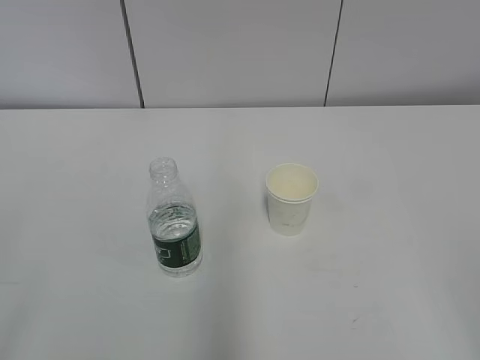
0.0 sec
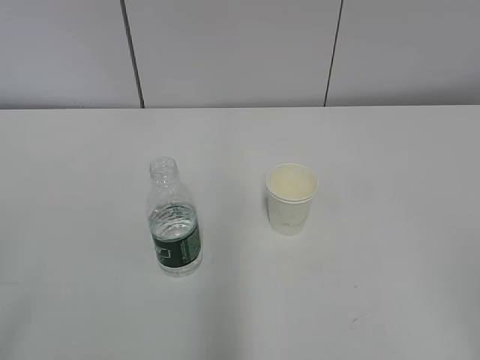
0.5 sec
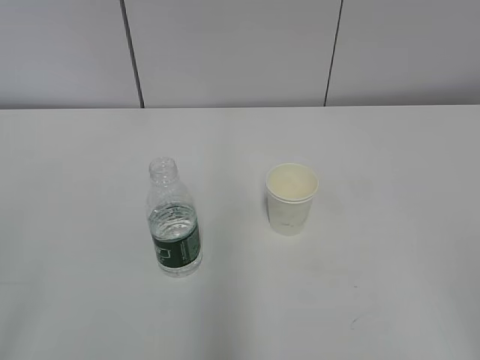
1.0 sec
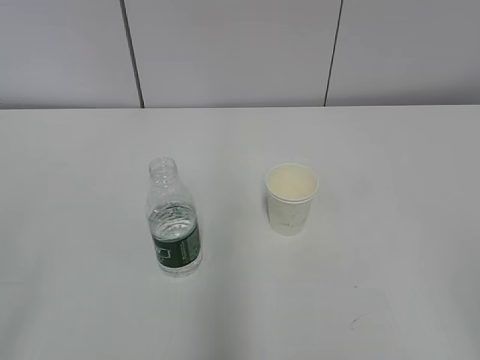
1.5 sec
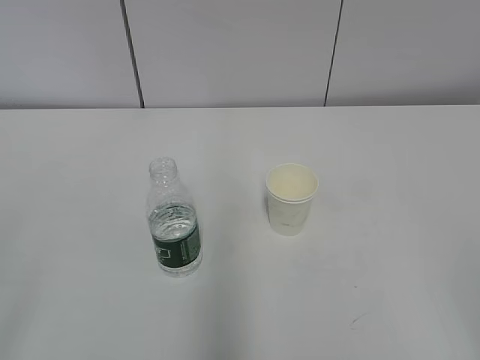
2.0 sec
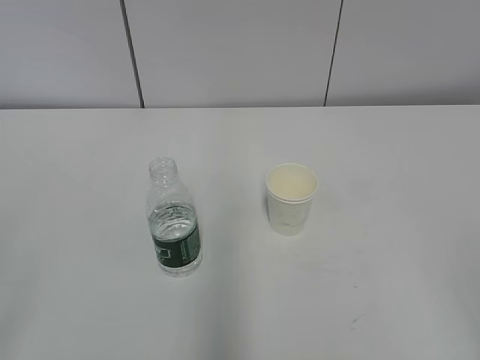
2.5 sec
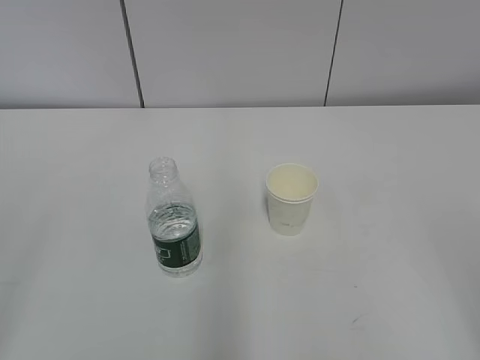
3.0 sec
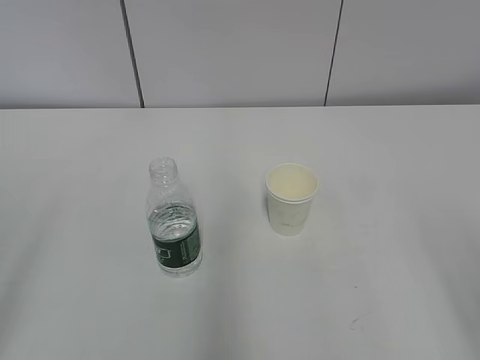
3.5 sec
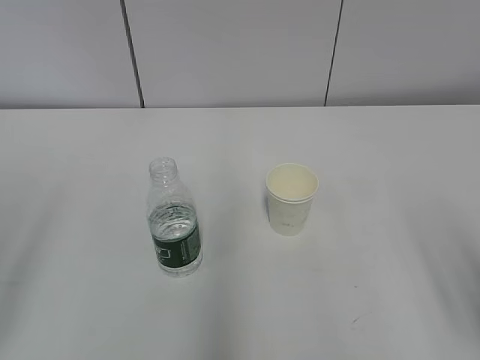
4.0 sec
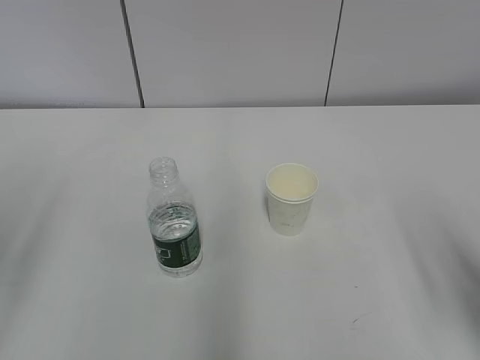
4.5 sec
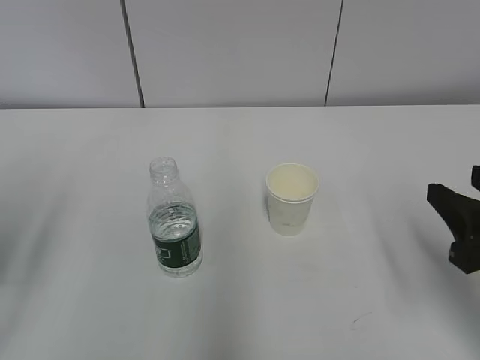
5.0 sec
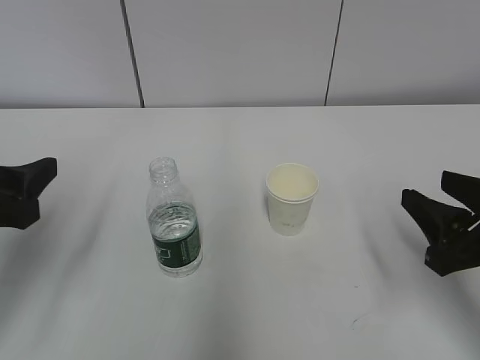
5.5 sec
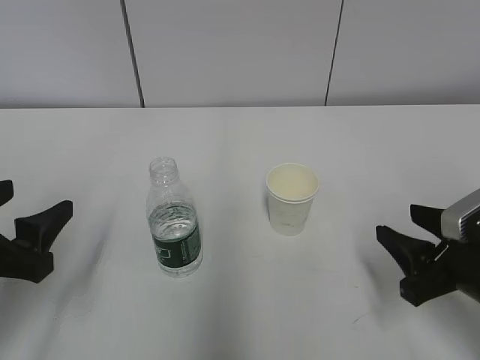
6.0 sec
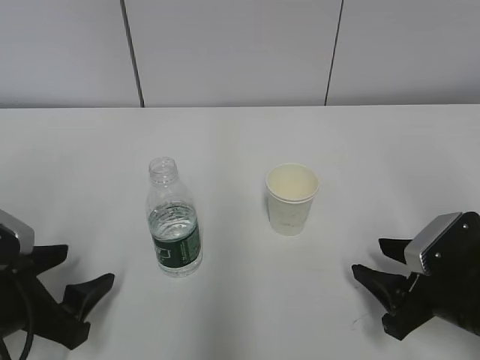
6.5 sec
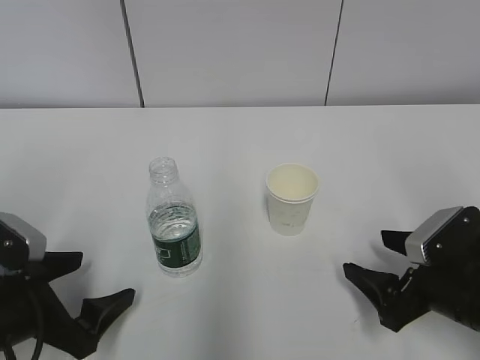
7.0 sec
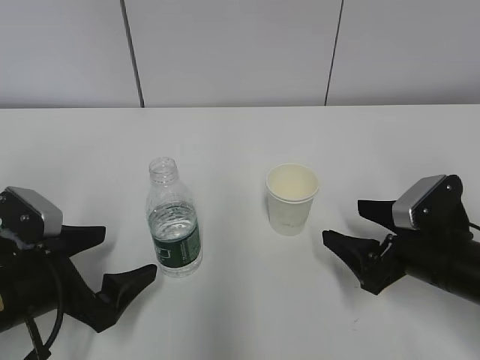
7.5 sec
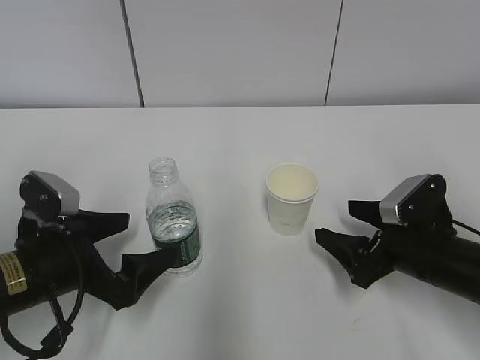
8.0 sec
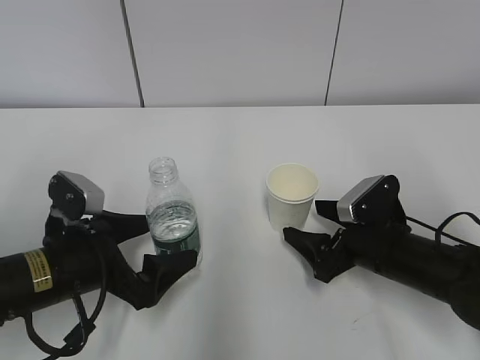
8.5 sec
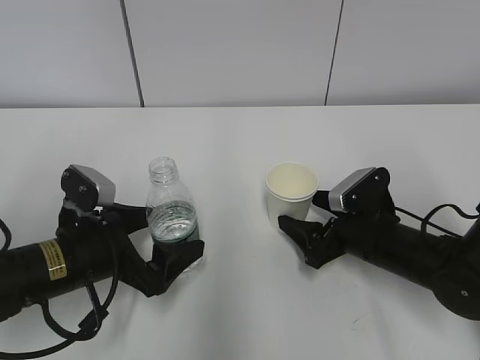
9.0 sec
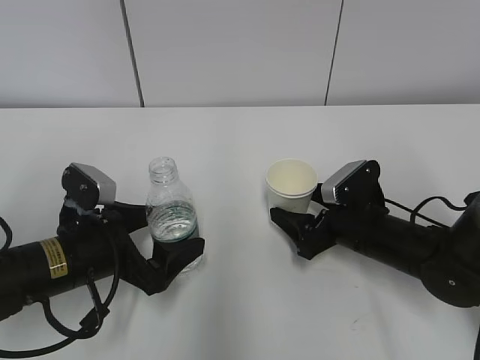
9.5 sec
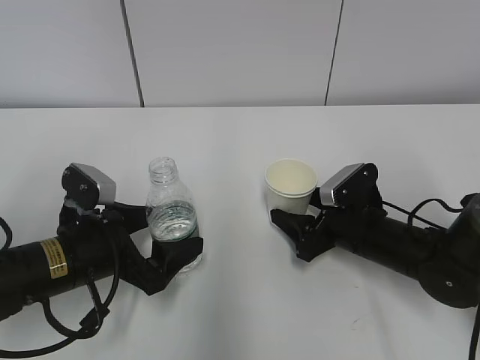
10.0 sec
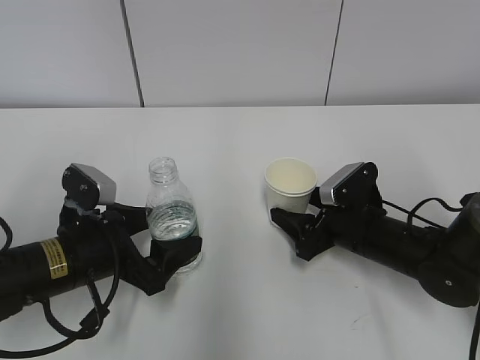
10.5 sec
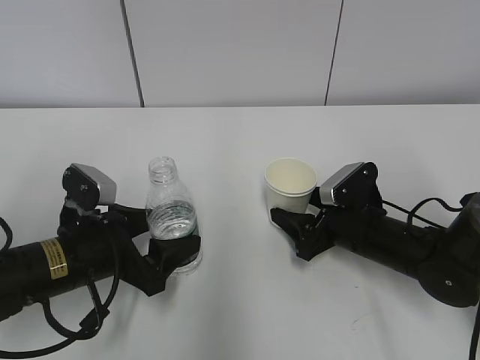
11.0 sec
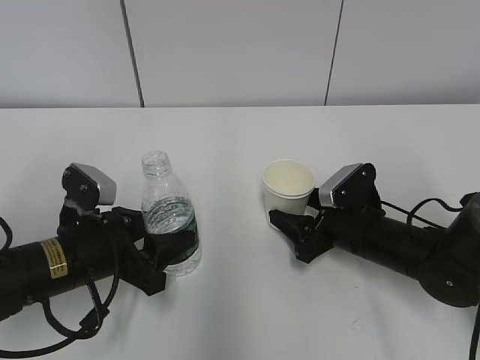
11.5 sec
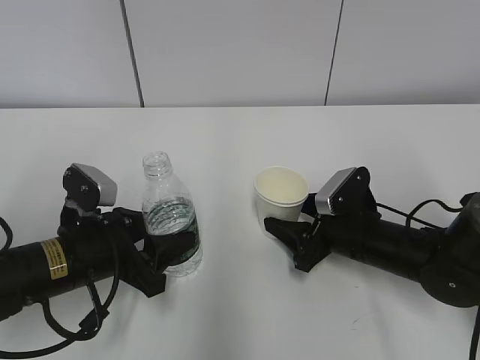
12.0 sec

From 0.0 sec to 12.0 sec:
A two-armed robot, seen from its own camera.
Step, from 0.0 sec to 10.0 sec: Grab the paper cup with the right hand.
From 4.0 sec to 6.0 sec: The right gripper goes approximately 15 cm forward and downward; the left gripper travels downward, forward and to the right by some 15 cm.
From 6.0 sec to 8.0 sec: The right gripper is displaced forward by roughly 5 cm, and opens, while the left gripper goes roughly 10 cm downward and to the right, and opens its fingers.
From 8.0 sec to 10.0 sec: The right gripper shifts roughly 5 cm forward, and closes its fingers.
From 10.0 sec to 12.0 sec: The left gripper closes up. The right gripper closes its fingers.

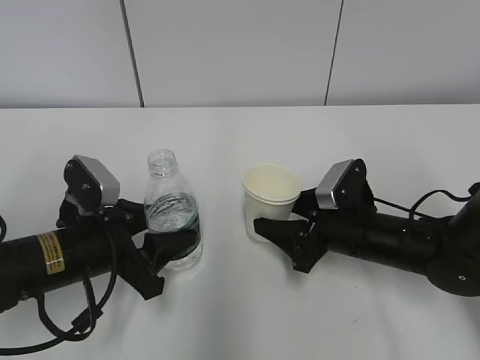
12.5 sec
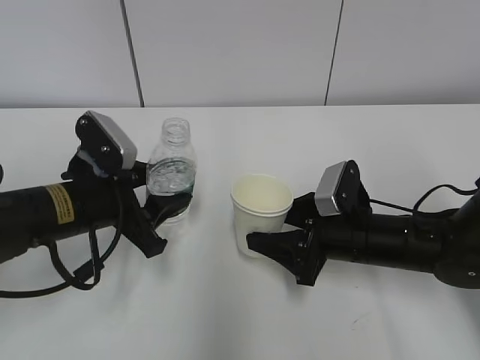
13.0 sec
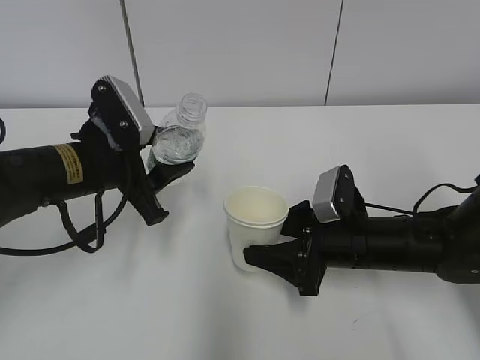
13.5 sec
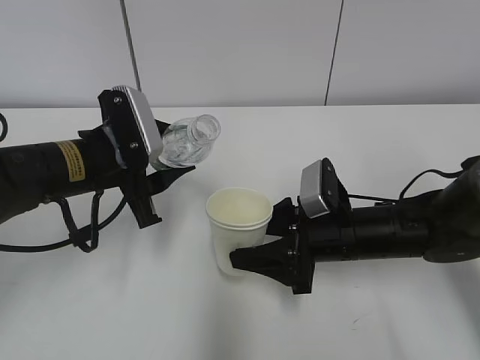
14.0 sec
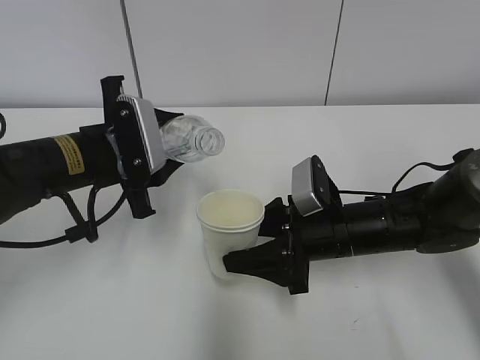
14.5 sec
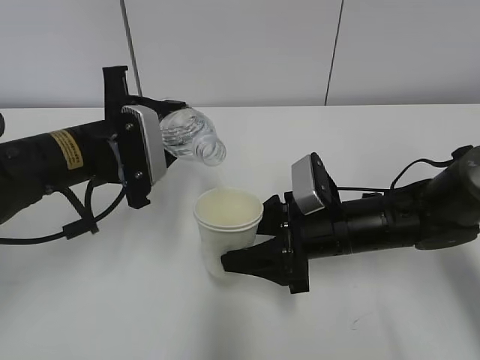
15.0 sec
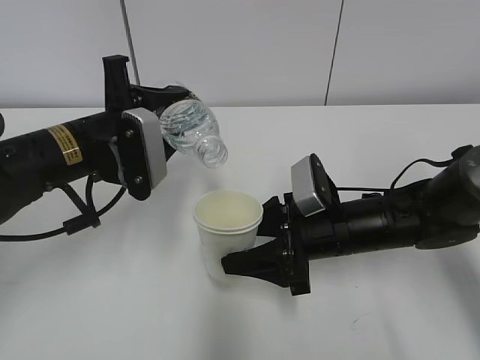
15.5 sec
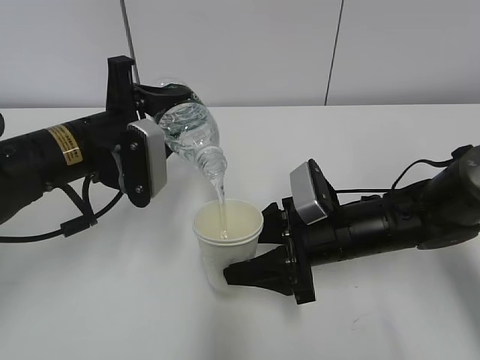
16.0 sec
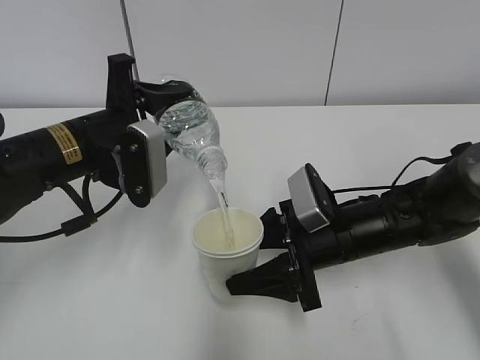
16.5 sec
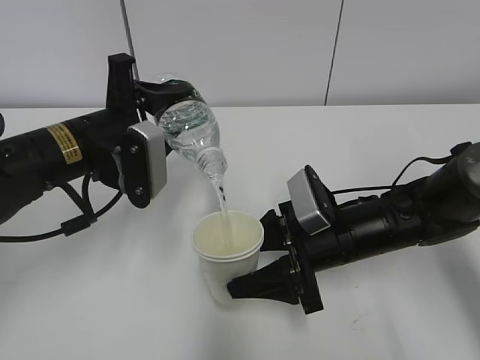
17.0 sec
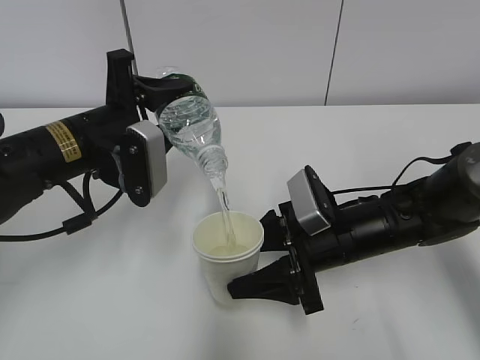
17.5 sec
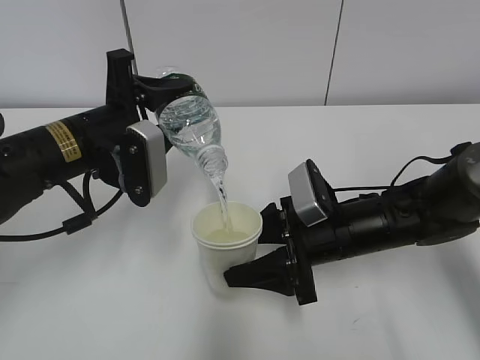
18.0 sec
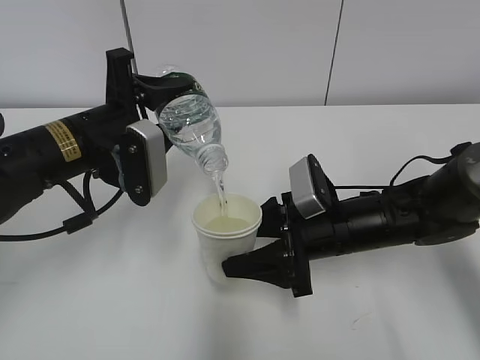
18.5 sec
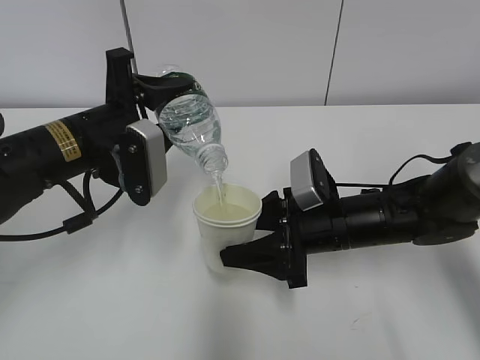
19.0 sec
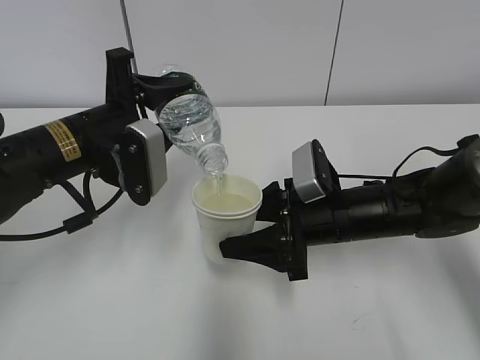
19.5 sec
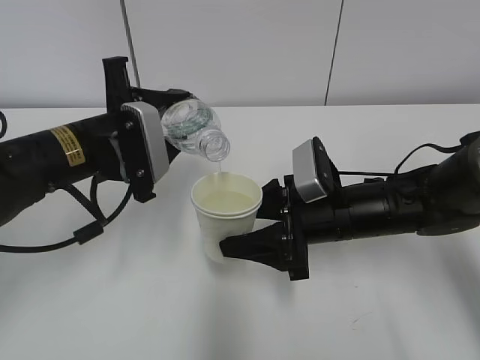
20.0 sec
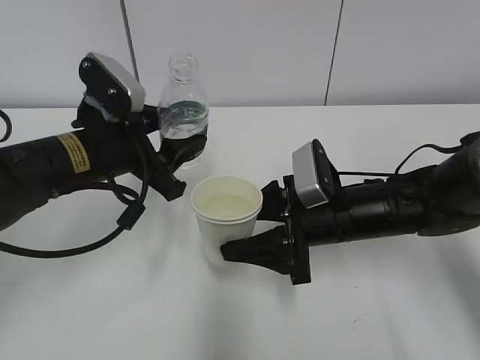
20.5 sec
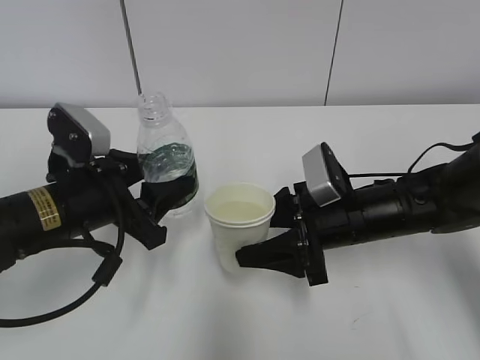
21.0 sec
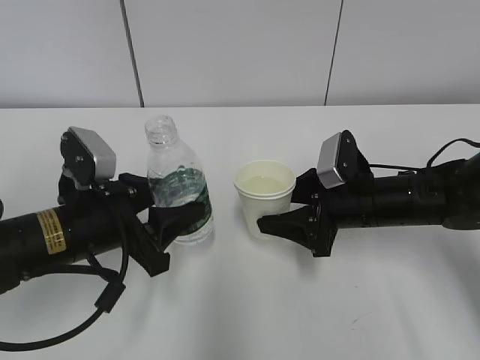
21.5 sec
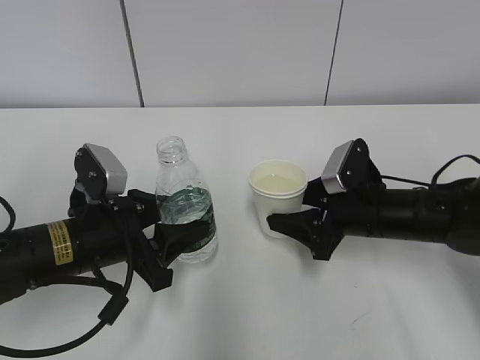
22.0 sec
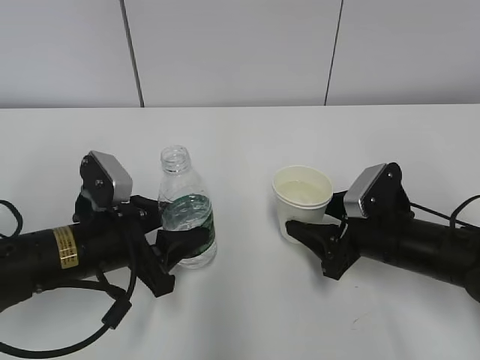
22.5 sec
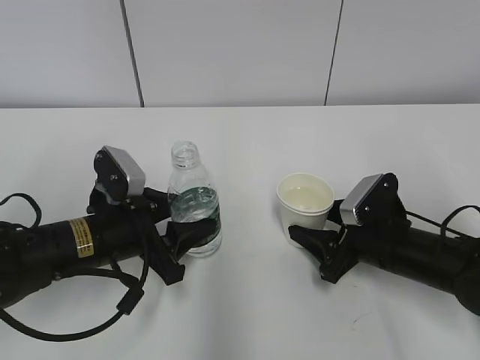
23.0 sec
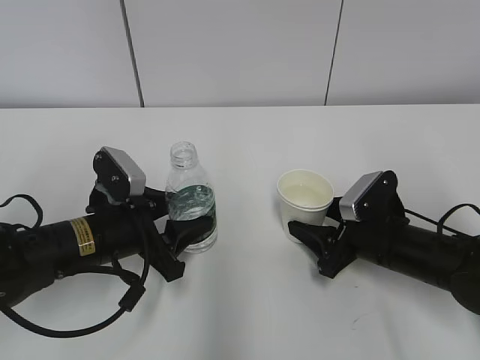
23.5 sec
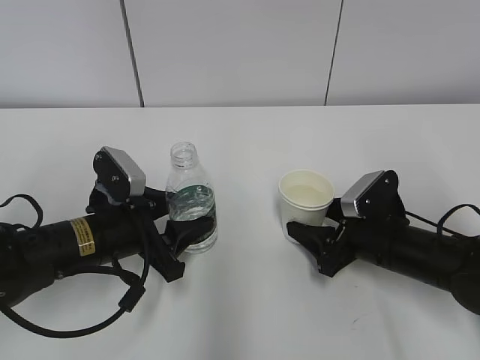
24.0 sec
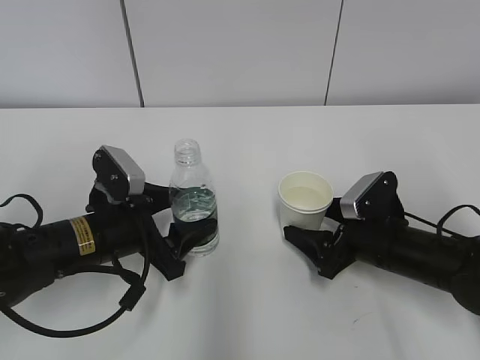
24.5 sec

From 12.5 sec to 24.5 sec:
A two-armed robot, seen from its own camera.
Step, from 13.5 sec to 16.5 sec: Fill water with the right hand.
Step, from 13.5 sec to 16.5 sec: Pour water with the left hand.
Step, from 17.5 sec to 20.0 sec: Place the paper cup with the right hand.
From 12.5 sec to 14.5 sec: The left gripper moves upward and forward, about 10 cm.
From 16.5 sec to 18.5 sec: Both grippers stay about where they are.
From 20.5 sec to 22.5 sec: The left gripper travels downward and backward by about 10 cm. Meanwhile the right gripper is displaced to the right by some 5 cm.
From 22.5 sec to 24.5 sec: The right gripper opens. Meanwhile the left gripper opens up.

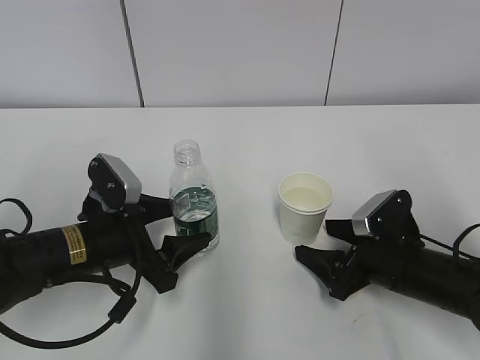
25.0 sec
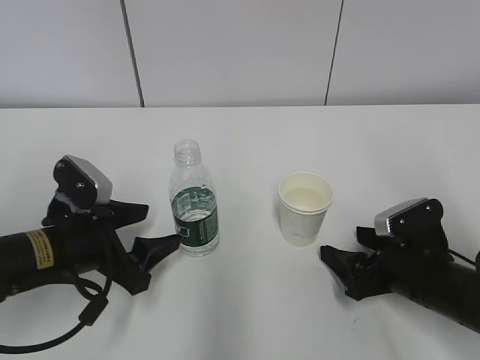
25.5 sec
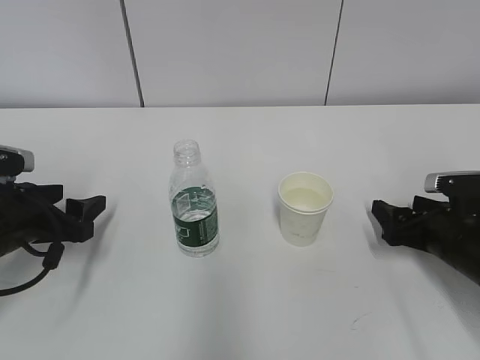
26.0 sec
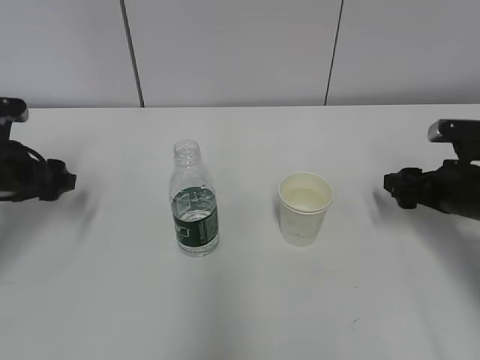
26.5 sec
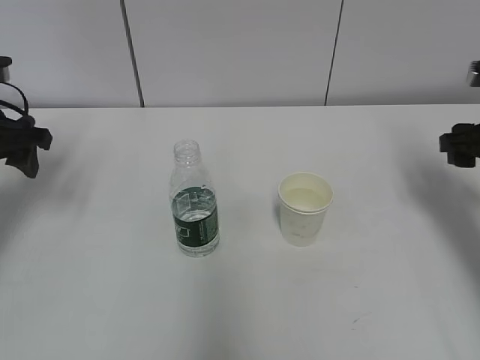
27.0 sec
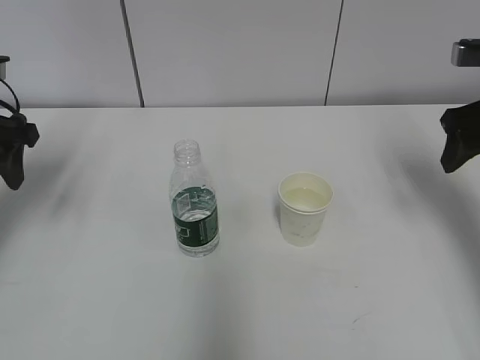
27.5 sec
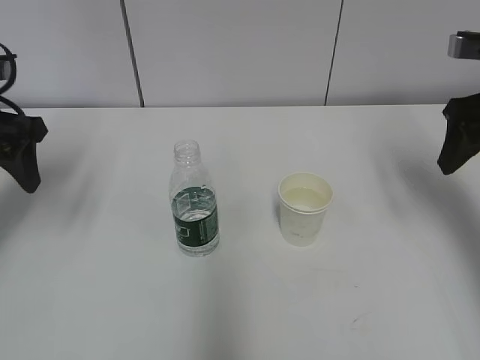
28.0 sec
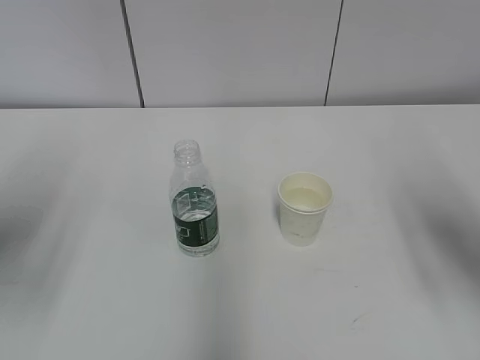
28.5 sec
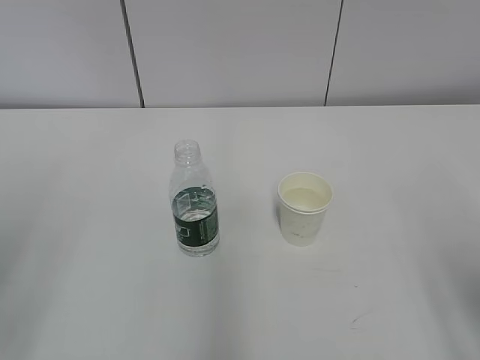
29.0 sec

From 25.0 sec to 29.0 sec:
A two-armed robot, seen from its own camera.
From 25.0 sec to 27.0 sec: The right gripper goes approximately 20 cm upward and to the right. The left gripper moves to the left, upward and forward, some 20 cm.
From 27.0 sec to 29.0 sec: The grippers both shift backward by some 25 cm.
